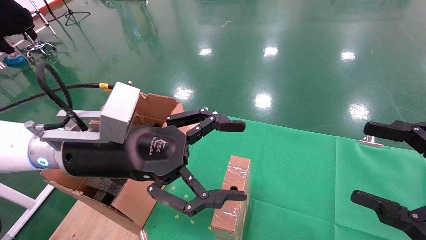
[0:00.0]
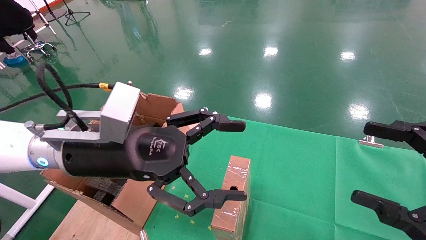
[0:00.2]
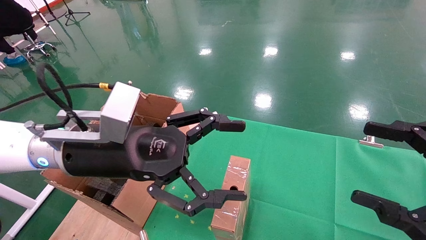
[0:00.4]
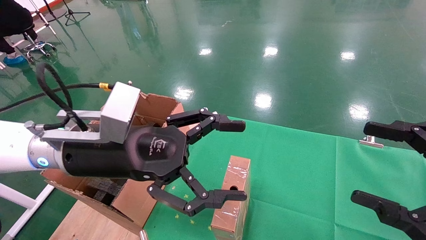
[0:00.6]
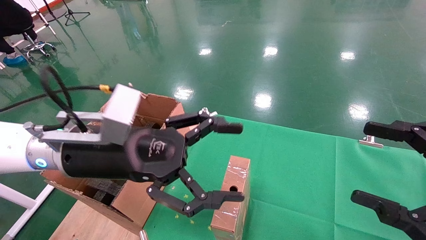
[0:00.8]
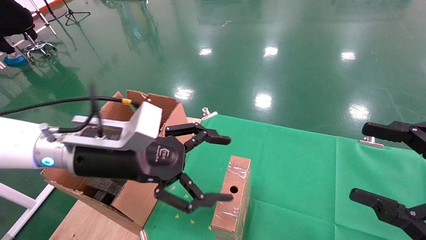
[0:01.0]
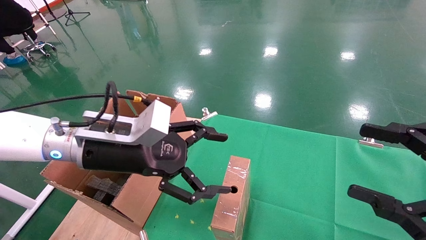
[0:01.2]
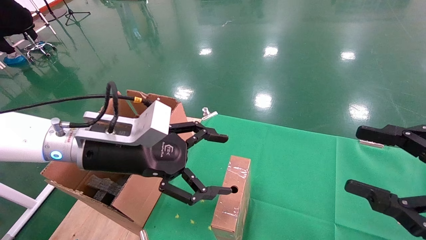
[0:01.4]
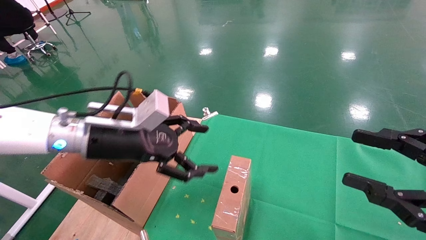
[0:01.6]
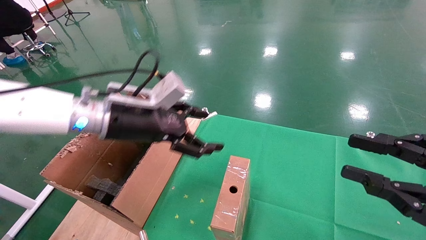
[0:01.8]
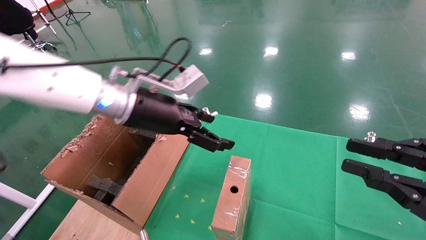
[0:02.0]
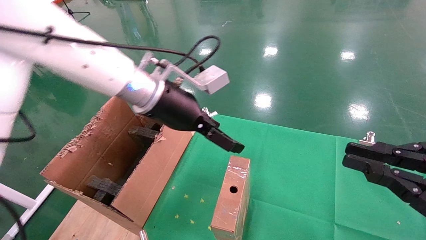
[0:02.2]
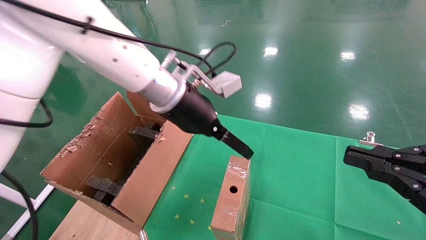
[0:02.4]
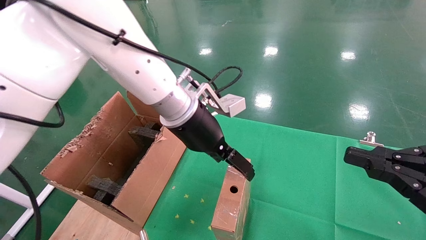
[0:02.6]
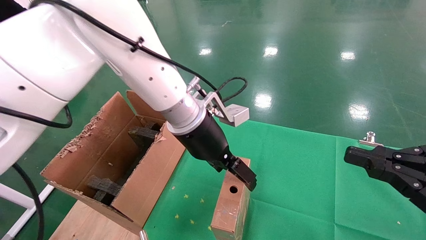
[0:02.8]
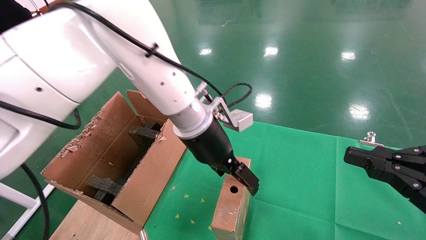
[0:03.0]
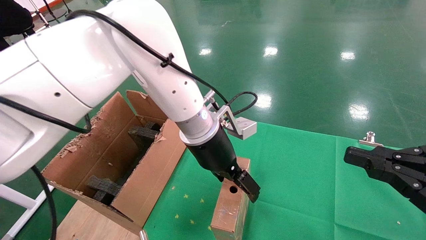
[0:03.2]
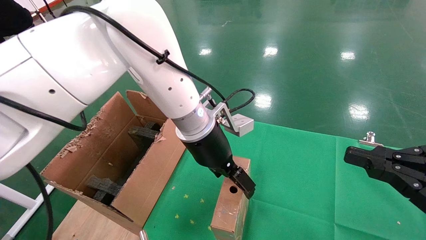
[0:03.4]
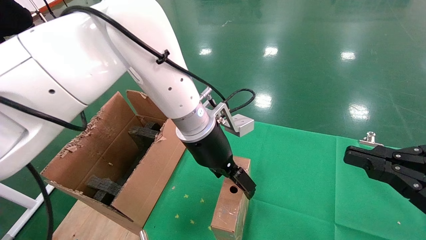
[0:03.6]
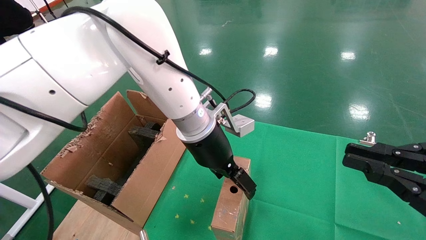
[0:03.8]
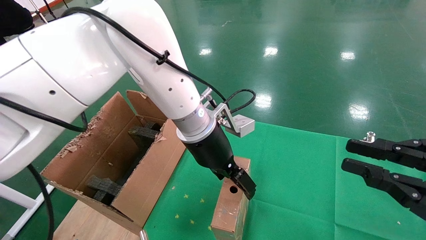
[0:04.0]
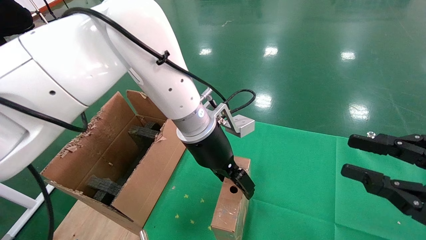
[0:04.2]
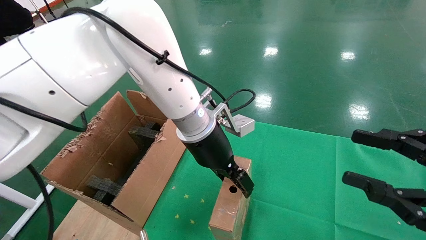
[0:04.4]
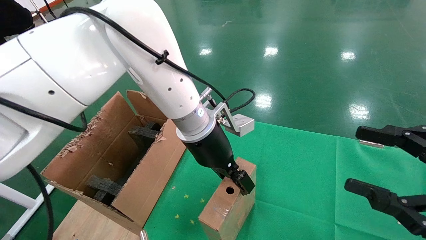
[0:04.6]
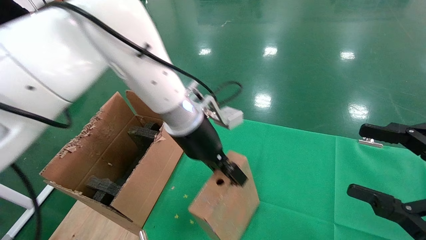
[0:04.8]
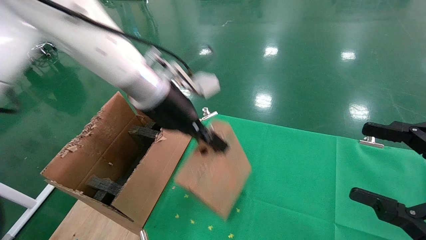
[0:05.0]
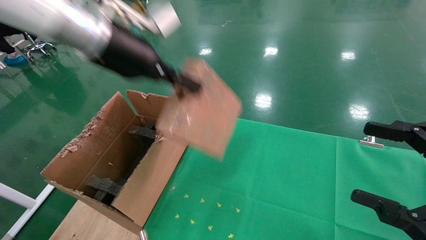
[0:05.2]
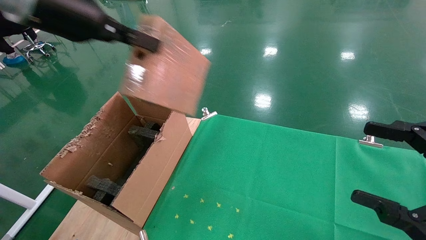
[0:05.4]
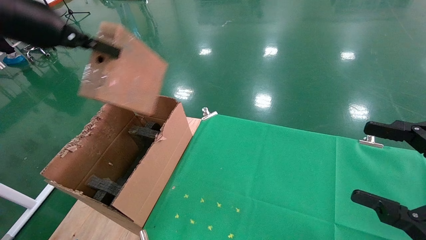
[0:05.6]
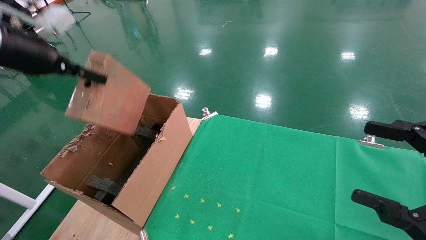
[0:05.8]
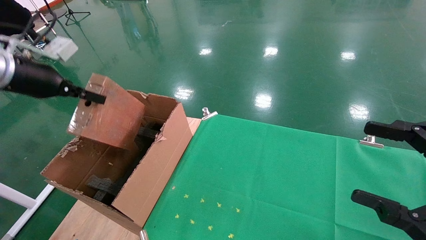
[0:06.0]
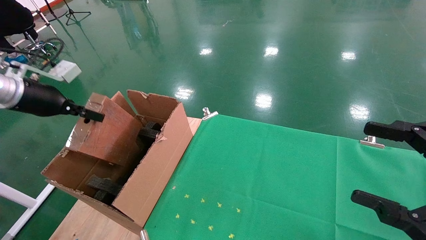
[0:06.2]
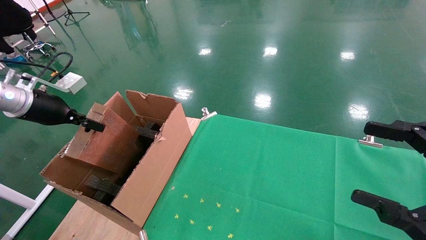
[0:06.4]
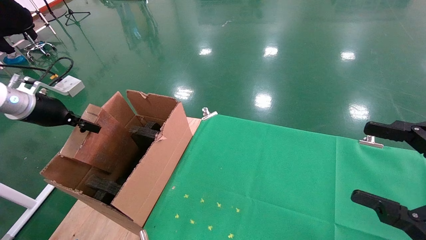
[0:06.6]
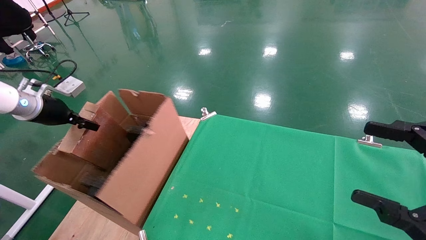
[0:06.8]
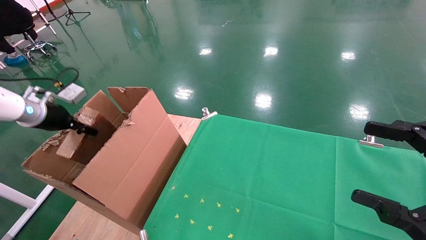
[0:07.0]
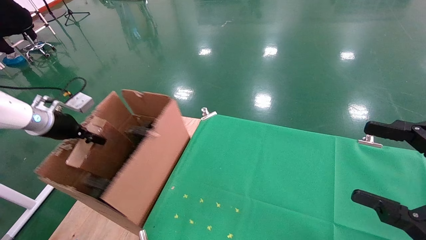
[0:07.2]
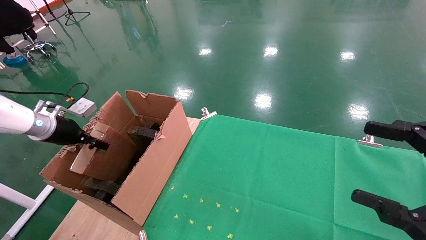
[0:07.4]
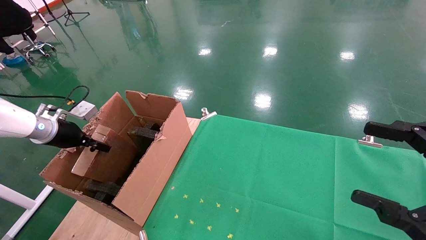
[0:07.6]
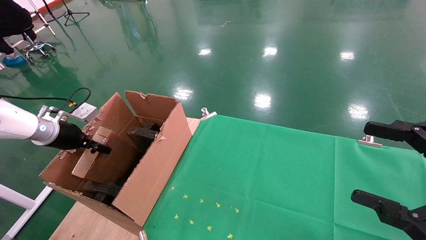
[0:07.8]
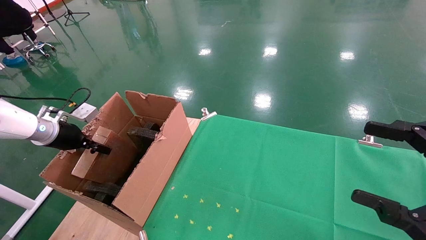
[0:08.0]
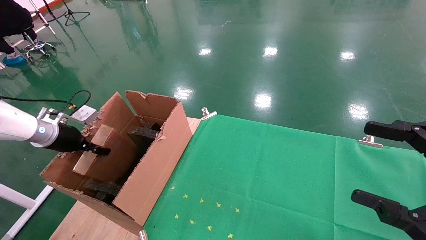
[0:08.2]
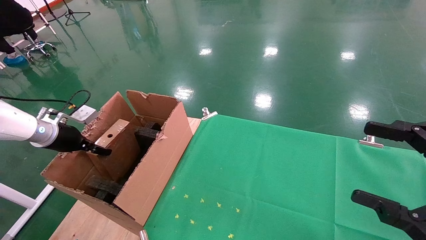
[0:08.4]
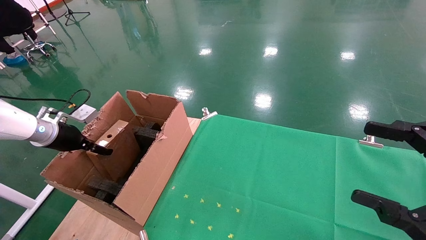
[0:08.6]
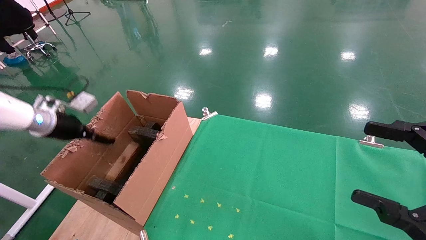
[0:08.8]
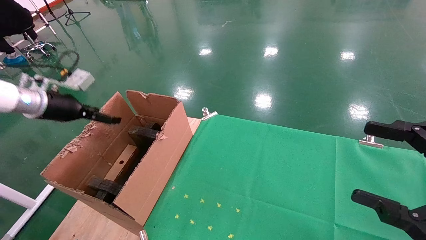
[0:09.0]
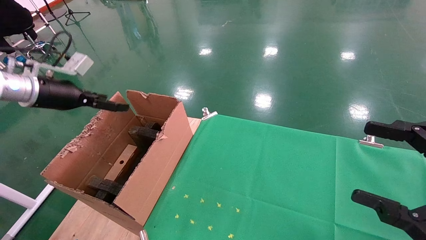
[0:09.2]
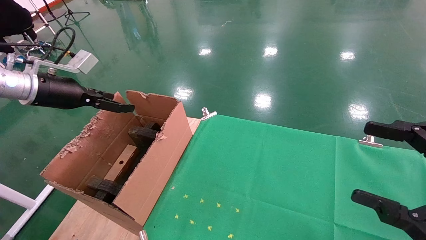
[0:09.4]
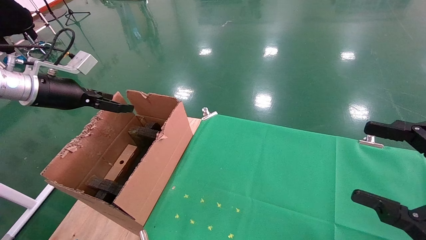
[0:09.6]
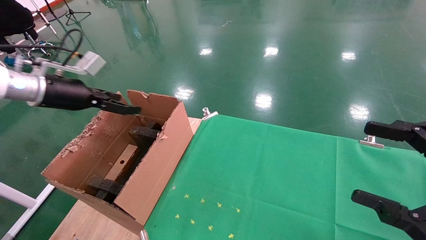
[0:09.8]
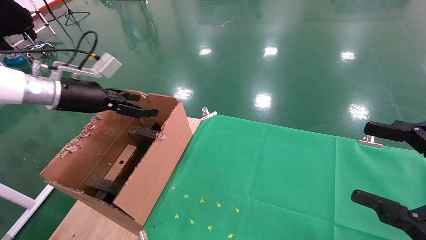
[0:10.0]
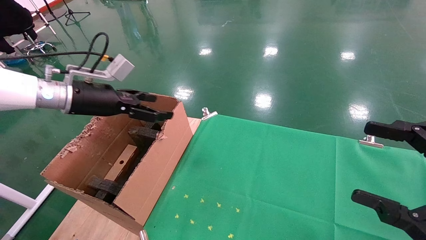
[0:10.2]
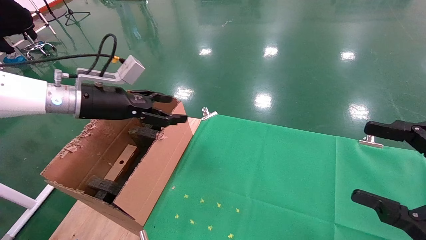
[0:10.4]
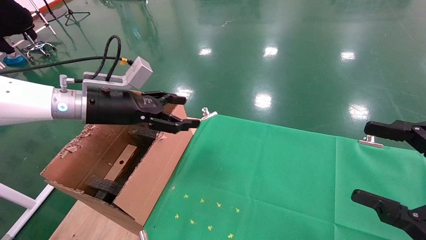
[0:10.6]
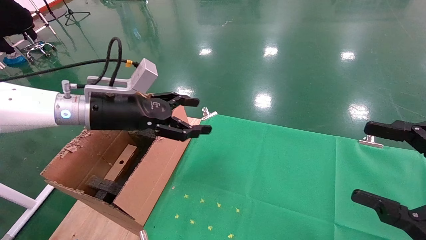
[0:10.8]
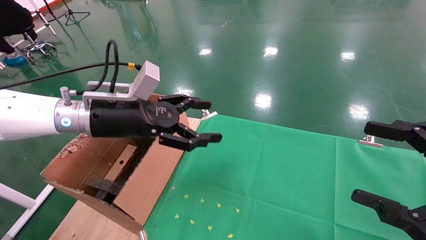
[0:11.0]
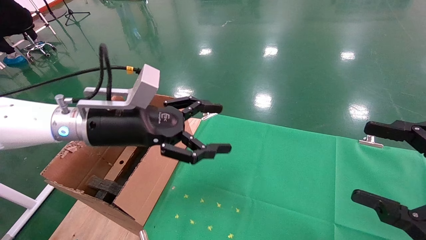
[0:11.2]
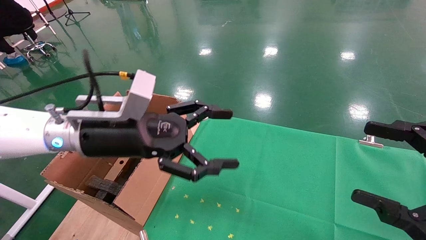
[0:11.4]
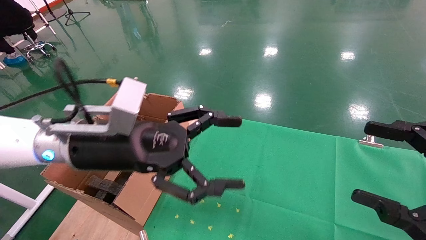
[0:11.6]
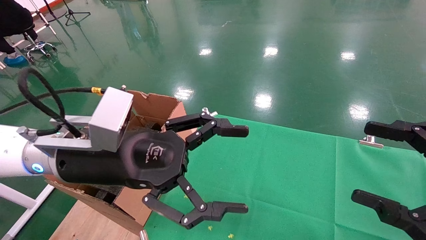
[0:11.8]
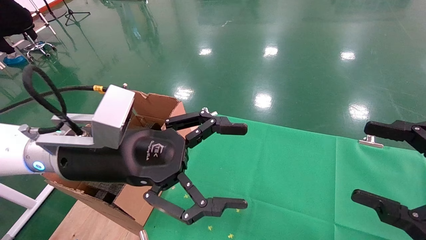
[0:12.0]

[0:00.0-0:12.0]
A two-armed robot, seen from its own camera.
Task of the whole recording: using a robotic arm to pick up a cardboard box and palace it the carton.
Step, 0:01.2 to 0:04.8: Pick up the mouse and the power cord paper box.
Step, 0:05.0 to 0:08.2: Place the mouse and the power cord paper box into the container.
0:00.0 to 0:01.6: The left gripper moves forward, about 5 cm.
0:01.6 to 0:03.0: The left gripper is displaced to the right and forward by roughly 15 cm, while the right gripper closes up.
0:03.0 to 0:04.4: The right gripper opens up.
0:04.4 to 0:06.0: The right gripper opens its fingers; the left gripper shifts roughly 35 cm to the left, and closes up.
0:06.0 to 0:07.6: The left gripper goes about 15 cm downward.
0:07.6 to 0:09.0: The left gripper heads upward, covering roughly 10 cm, and opens up.
0:09.0 to 0:10.4: The left gripper is displaced to the right by approximately 15 cm.
0:10.4 to 0:12.0: The left gripper moves to the right and backward, some 20 cm.

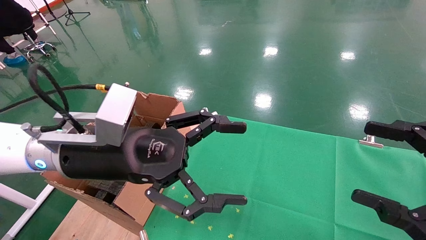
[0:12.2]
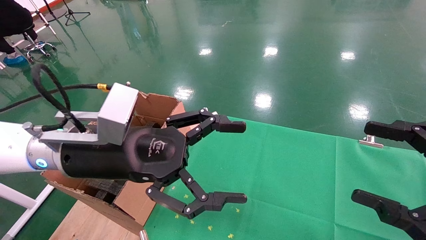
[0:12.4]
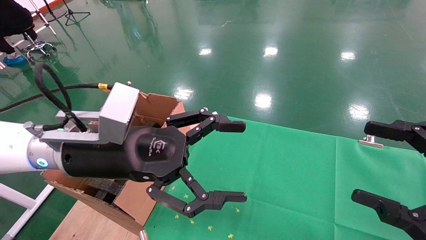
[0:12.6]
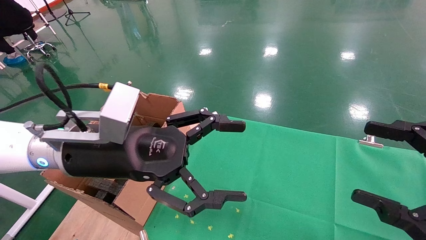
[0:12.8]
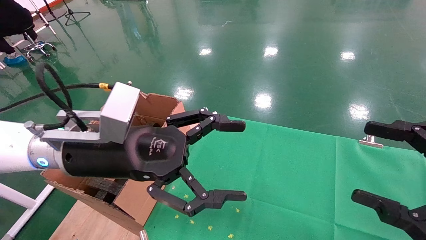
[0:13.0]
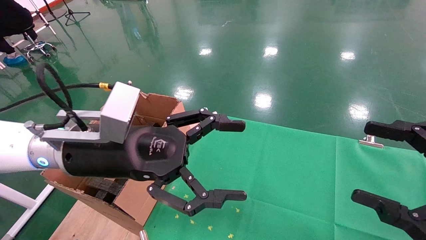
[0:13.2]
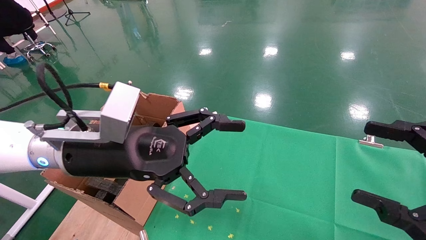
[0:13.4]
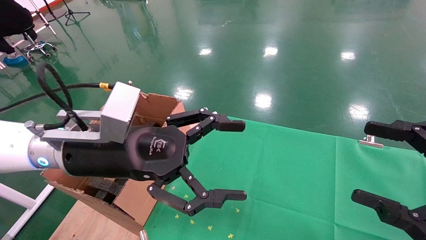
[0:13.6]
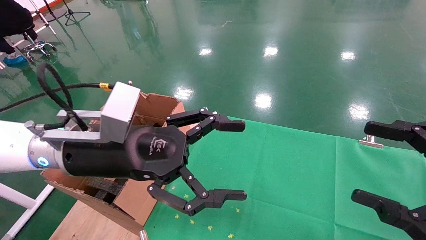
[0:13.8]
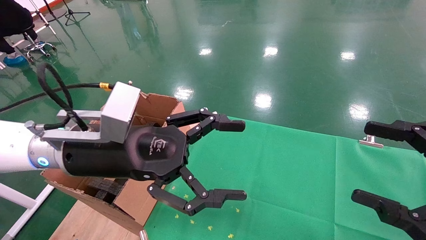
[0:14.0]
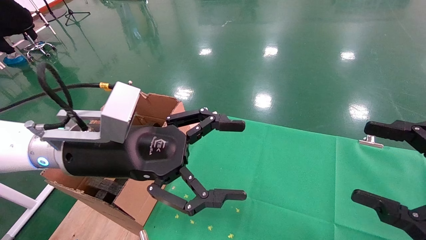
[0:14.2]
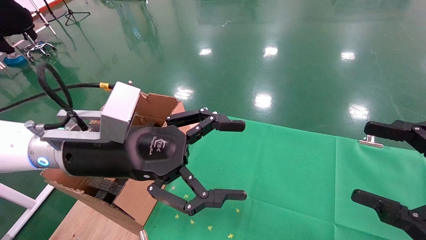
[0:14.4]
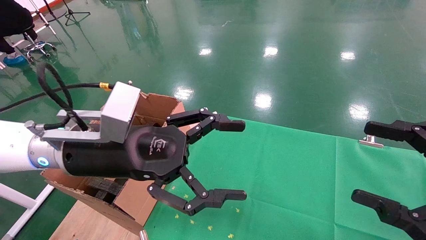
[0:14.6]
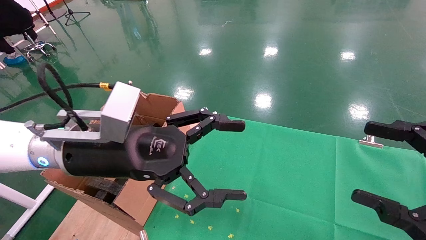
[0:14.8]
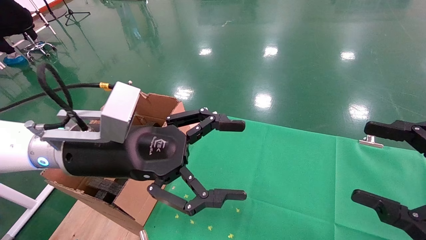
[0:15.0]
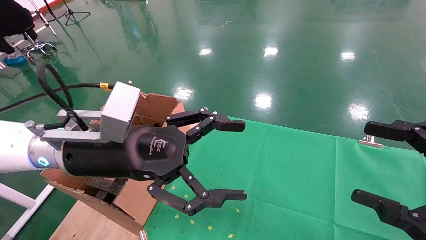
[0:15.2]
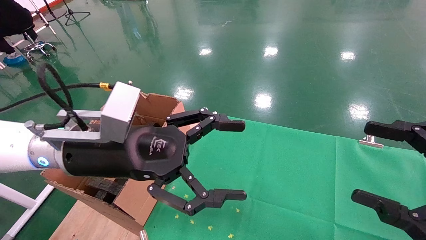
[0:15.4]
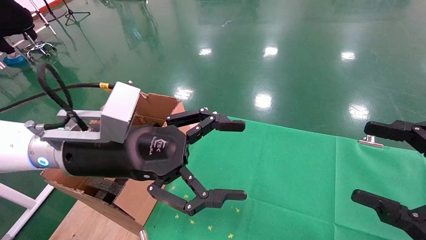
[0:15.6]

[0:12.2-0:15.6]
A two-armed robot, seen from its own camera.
Task of the whole recording: using a robotic arm to pick up a cardboard box and palace it the carton.
0:12.2 to 0:15.6: Both grippers stay about where they are.

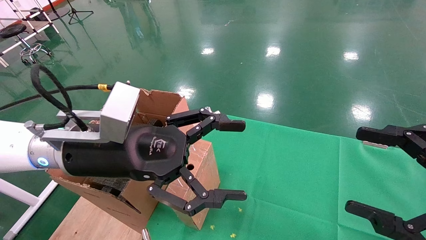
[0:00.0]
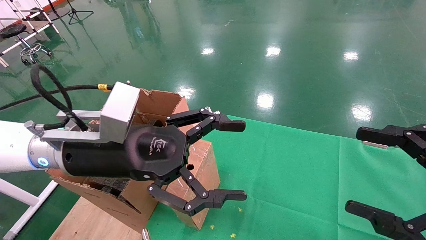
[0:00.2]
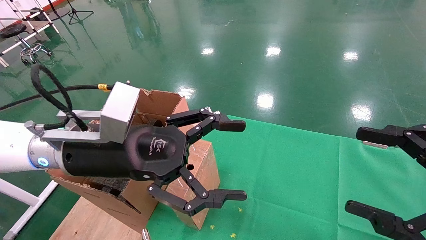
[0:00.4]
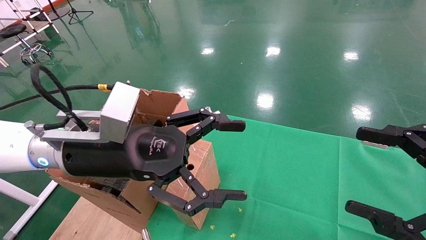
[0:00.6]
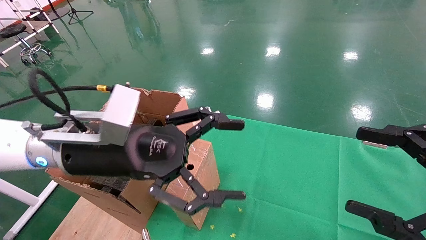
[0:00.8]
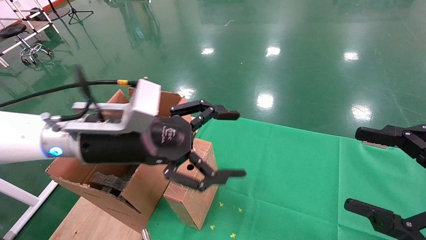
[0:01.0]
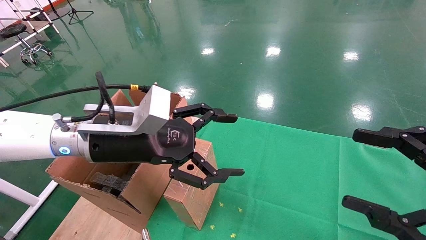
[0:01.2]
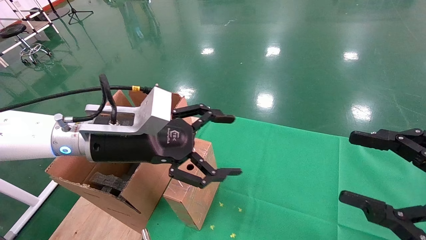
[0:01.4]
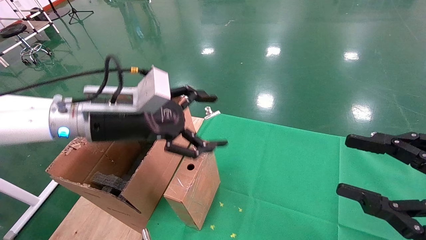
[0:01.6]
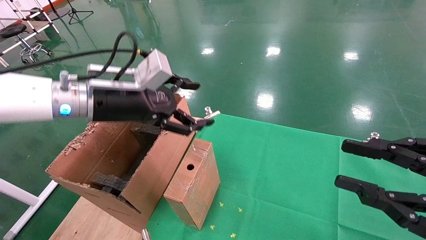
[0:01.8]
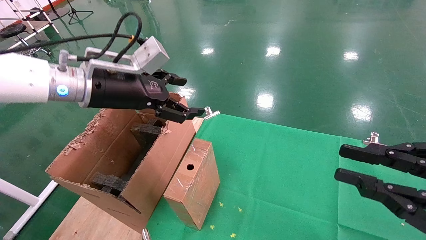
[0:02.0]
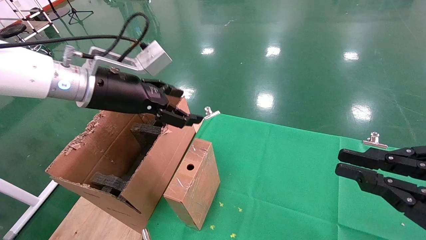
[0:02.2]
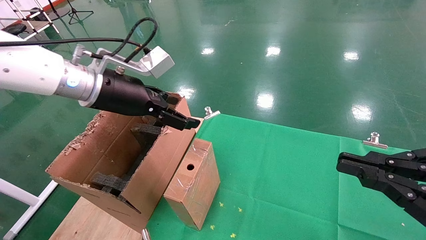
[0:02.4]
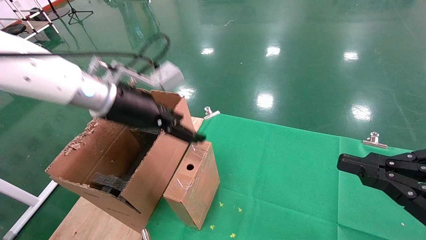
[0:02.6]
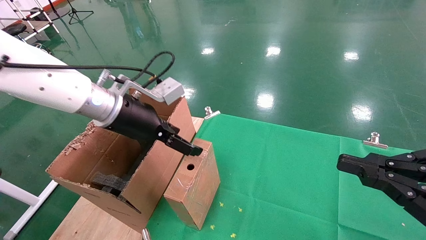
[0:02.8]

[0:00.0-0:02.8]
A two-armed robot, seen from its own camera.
Task of the whole recording: using a robotic arm to pick up a cardboard box and palace it the carton.
0:01.4 to 0:02.8: The left gripper ends up some 5 cm from where it was; the right gripper closes.
